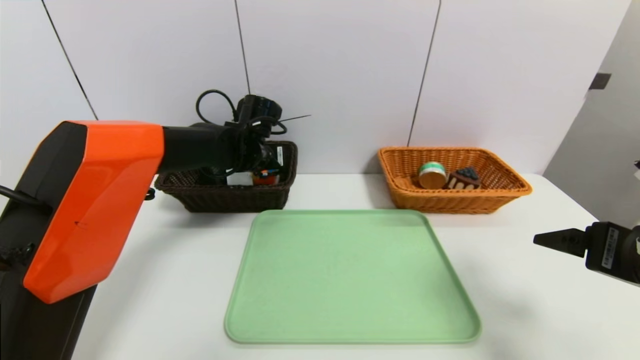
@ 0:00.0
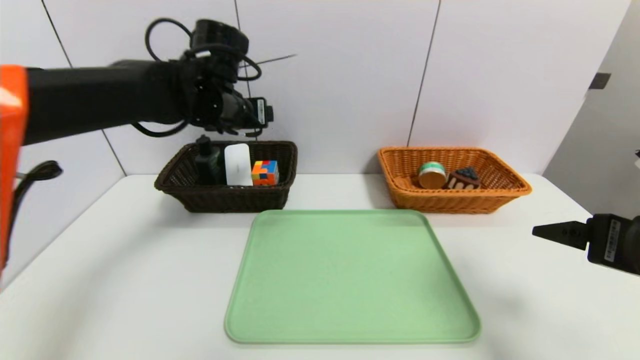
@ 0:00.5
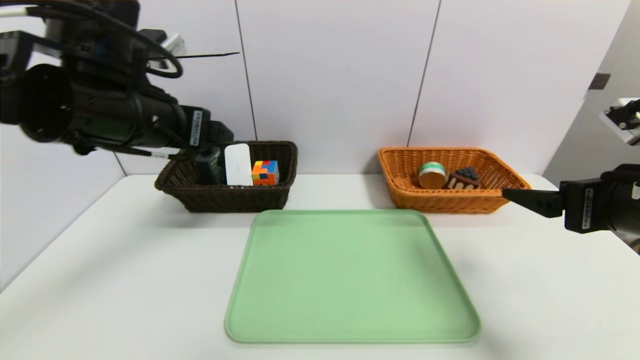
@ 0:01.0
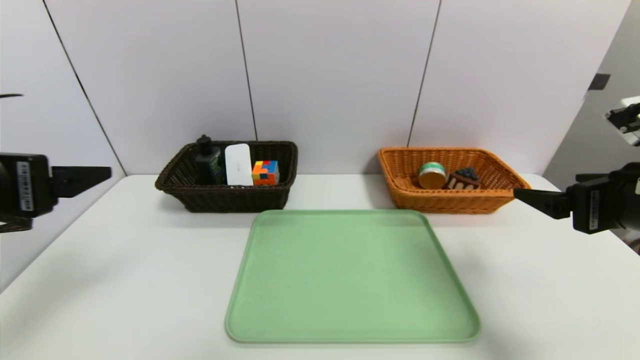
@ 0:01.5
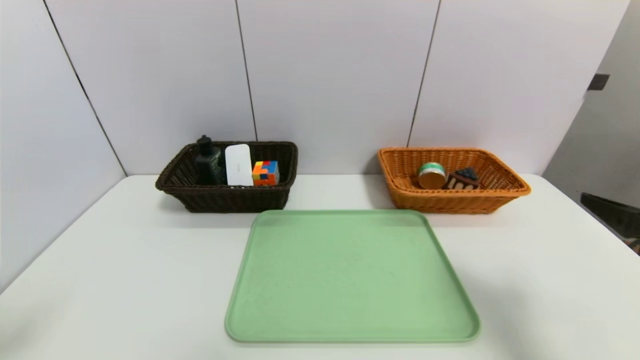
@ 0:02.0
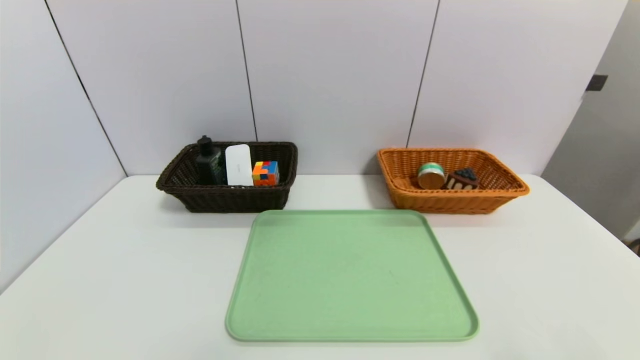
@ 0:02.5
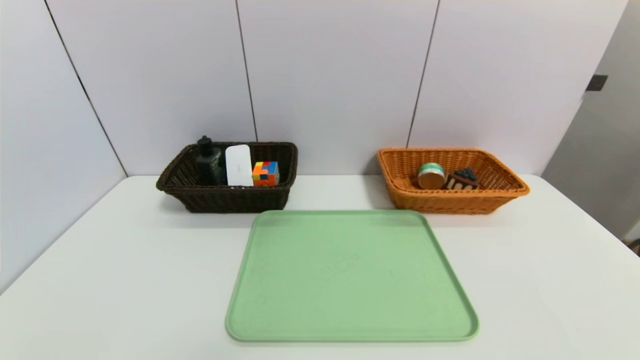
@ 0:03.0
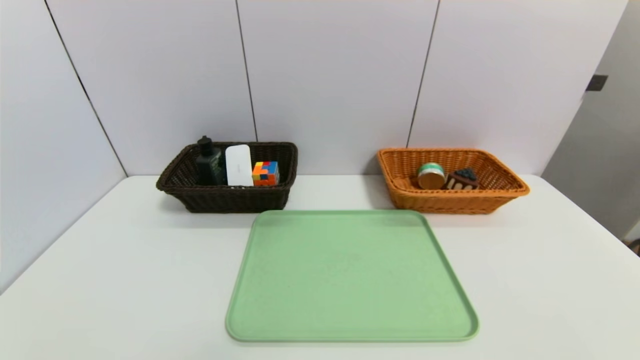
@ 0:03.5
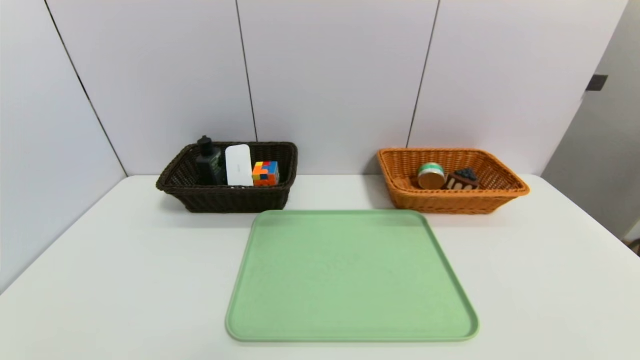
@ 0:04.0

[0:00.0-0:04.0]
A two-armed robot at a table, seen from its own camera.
Task of the whole recording: place the food in the right basket with the right gripper, and place the non food items in the left basket with the left gripper.
0:00.0 to 0:02.0: The left gripper heads backward and to the left, covering roughly 50 cm.
0:02.0 to 0:04.0: The right gripper travels downward and backward by some 20 cm.

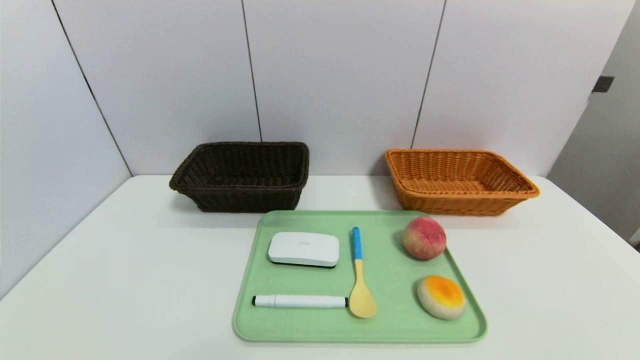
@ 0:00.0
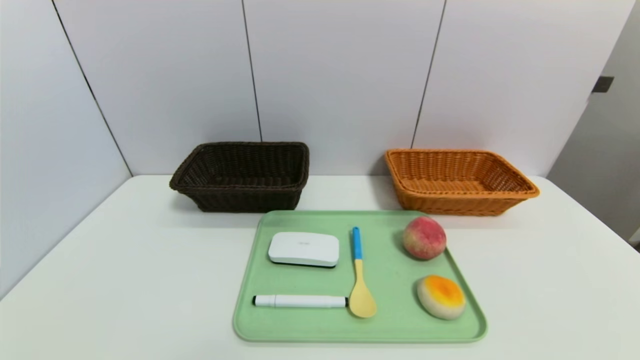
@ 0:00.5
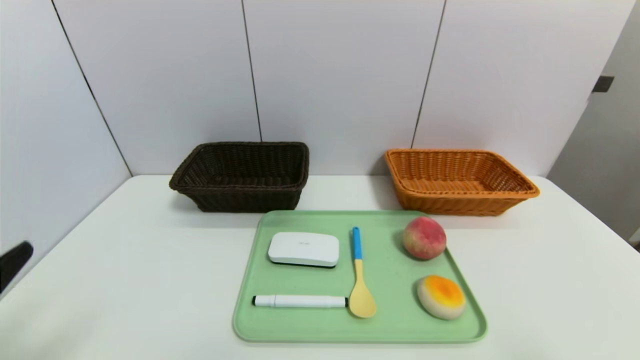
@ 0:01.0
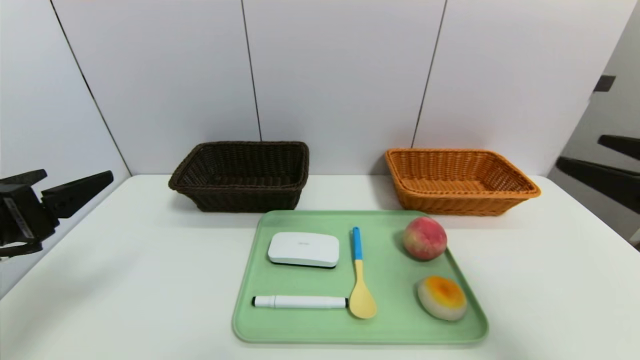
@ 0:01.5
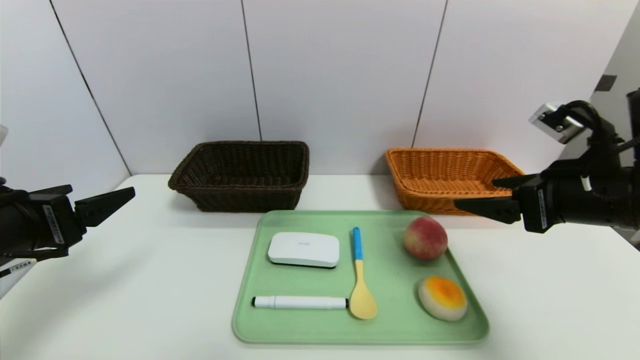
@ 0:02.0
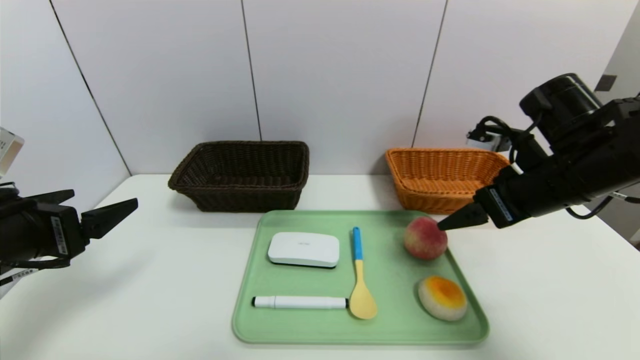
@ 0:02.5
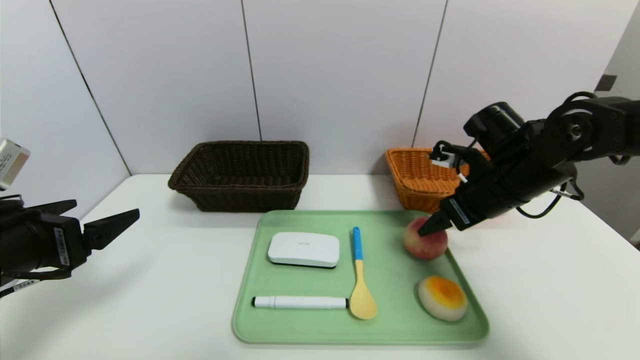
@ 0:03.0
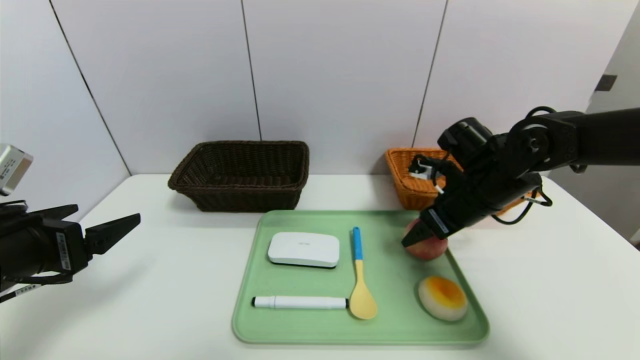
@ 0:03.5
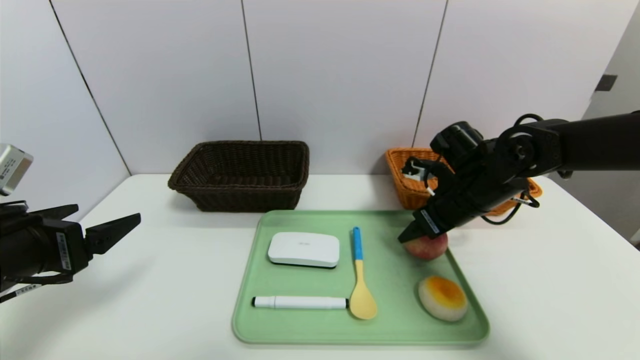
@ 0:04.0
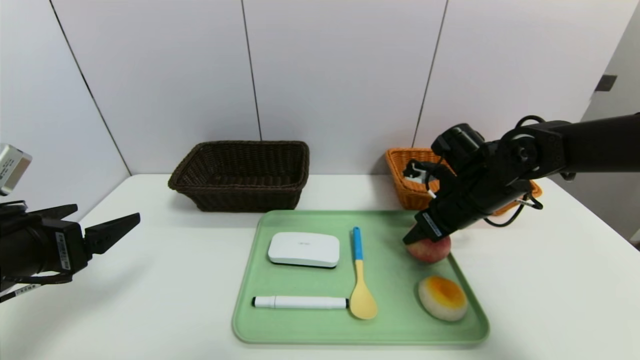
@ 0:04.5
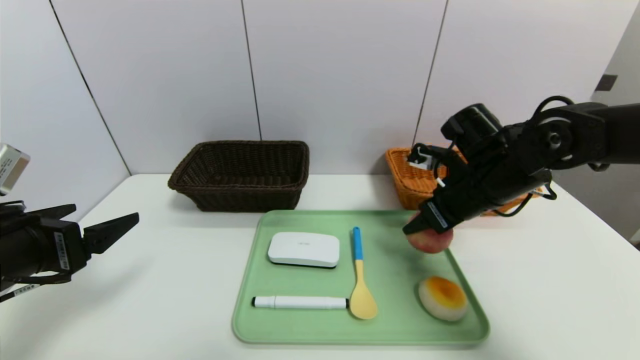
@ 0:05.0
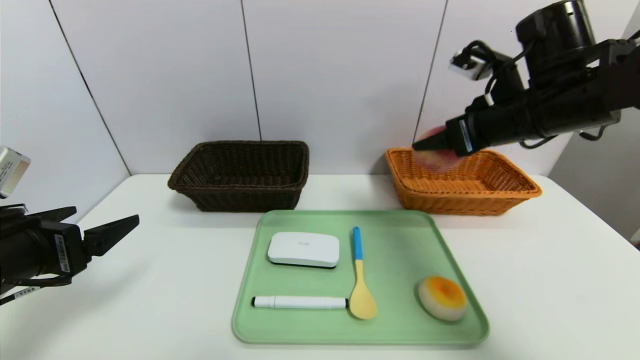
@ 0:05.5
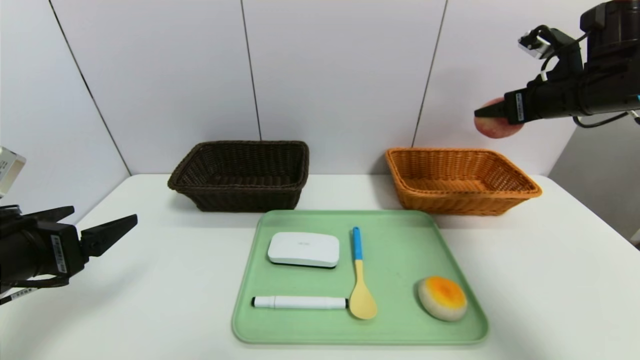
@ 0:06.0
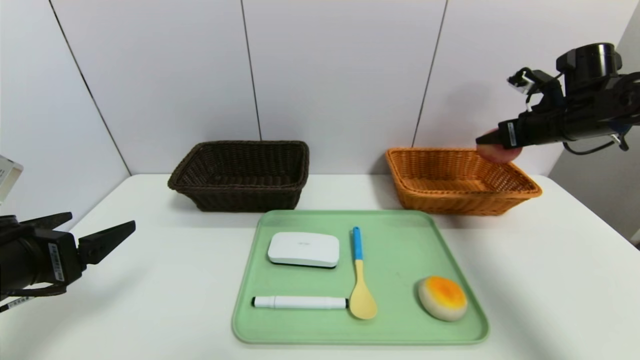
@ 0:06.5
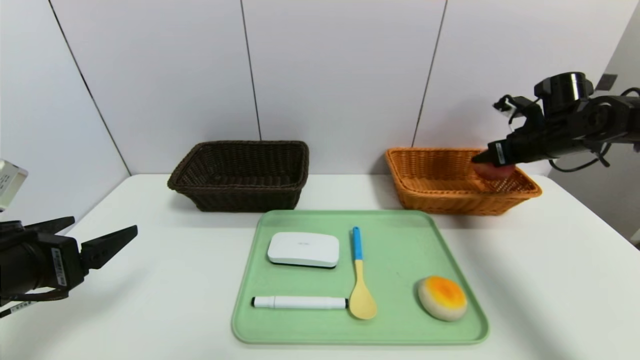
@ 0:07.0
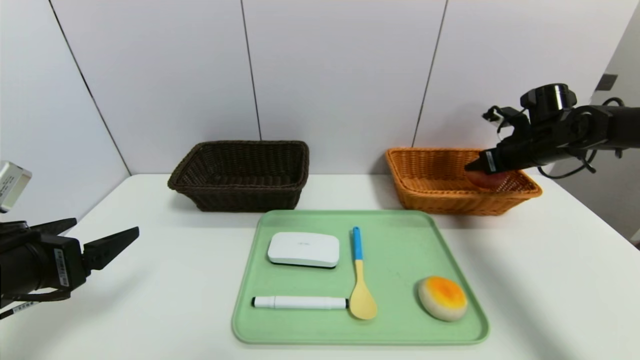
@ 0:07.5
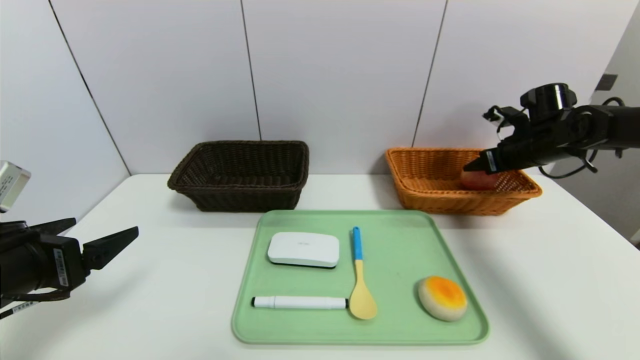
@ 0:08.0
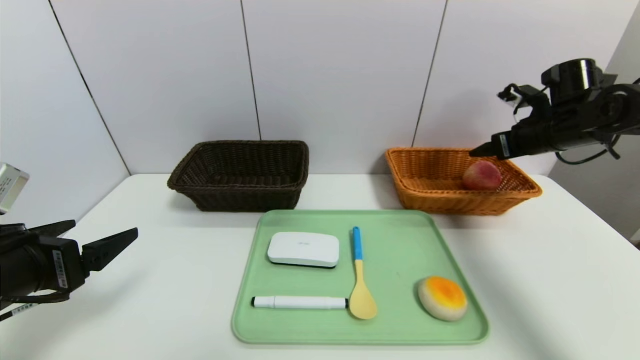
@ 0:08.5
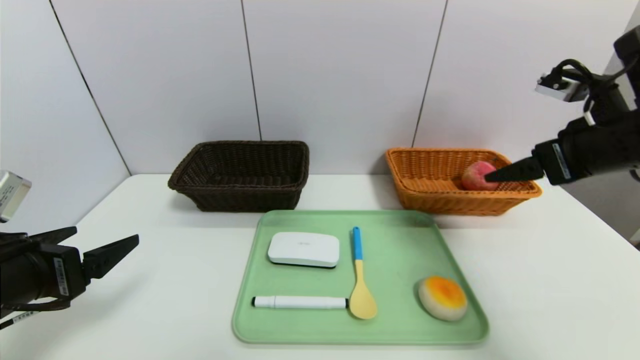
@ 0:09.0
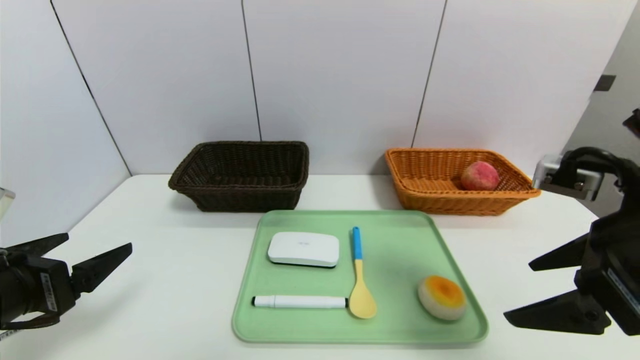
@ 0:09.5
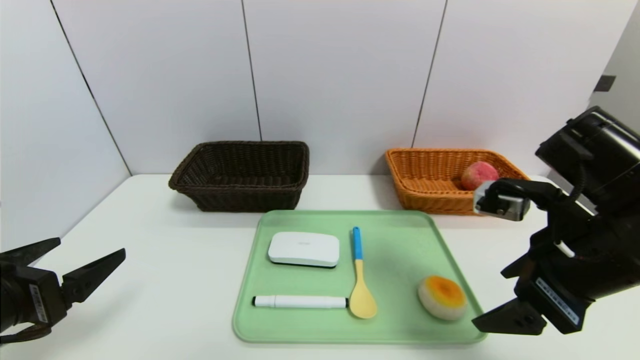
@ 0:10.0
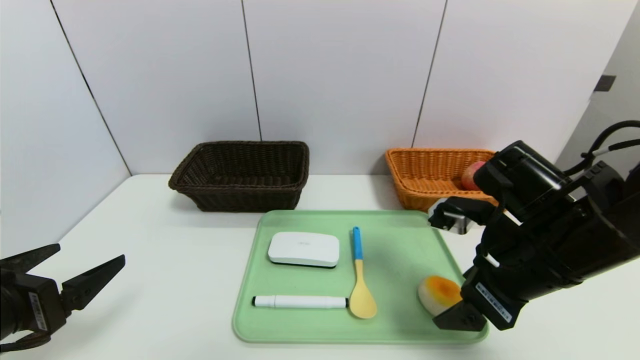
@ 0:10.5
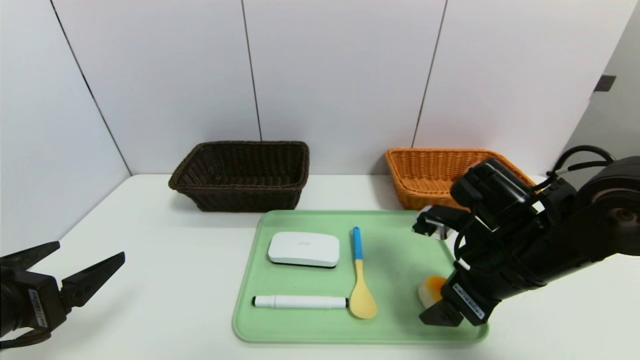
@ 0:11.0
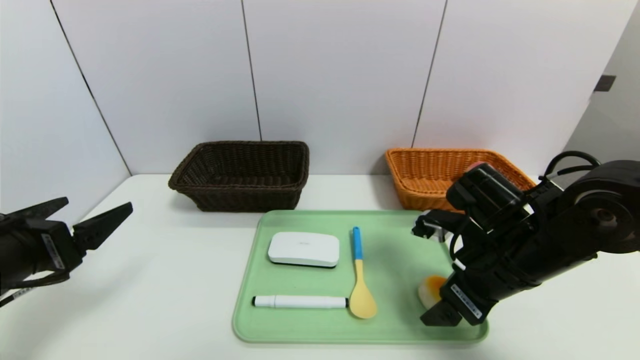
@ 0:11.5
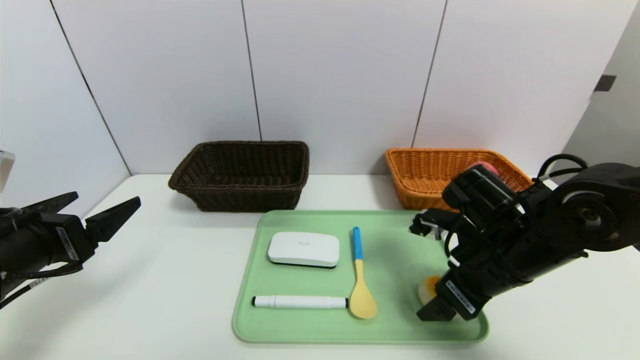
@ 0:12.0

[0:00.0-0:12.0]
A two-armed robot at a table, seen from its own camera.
Task of the whole recording: place the food in the right basket with the right gripper, and place the non food items in the left basket with the left gripper.
Step, 0:00.0 to 0:08.5: Grasp the peach and put it in the right basket.
0:00.0 to 0:02.0: Both grippers move forward and upward, about 25 cm.
0:02.0 to 0:04.0: The right gripper is displaced forward, downward and to the left by some 15 cm.
0:04.0 to 0:06.0: The right gripper is displaced upward and to the right by approximately 20 cm.
0:06.0 to 0:08.0: The right gripper is displaced downward and forward by about 15 cm.
0:08.0 to 0:10.0: The right gripper moves backward and to the left, roughly 30 cm.
0:10.0 to 0:12.0: The right gripper heads downward and forward, covering about 10 cm.

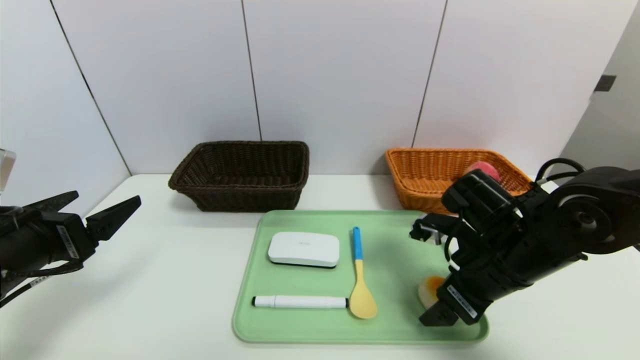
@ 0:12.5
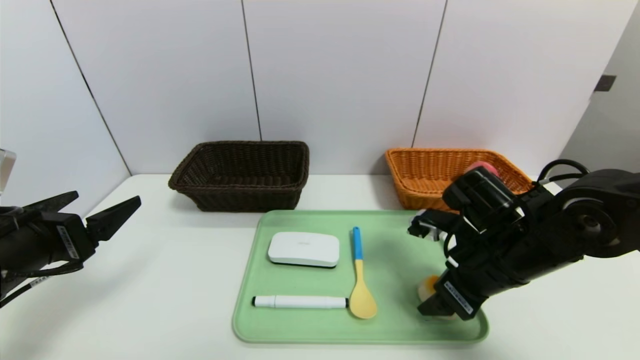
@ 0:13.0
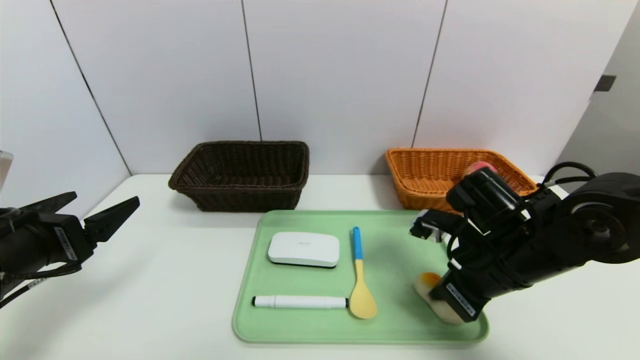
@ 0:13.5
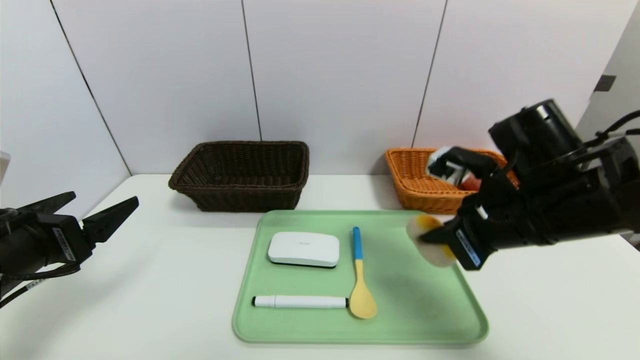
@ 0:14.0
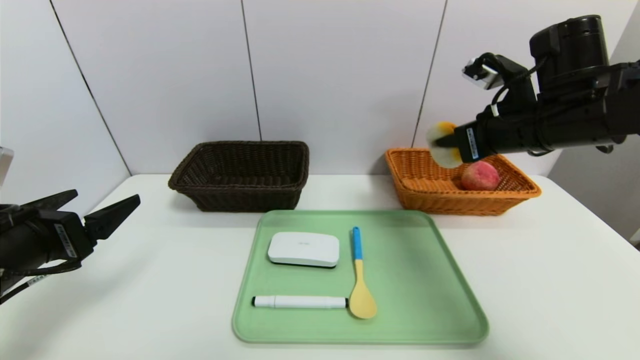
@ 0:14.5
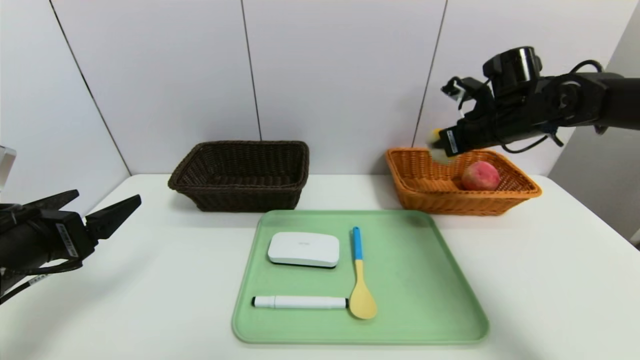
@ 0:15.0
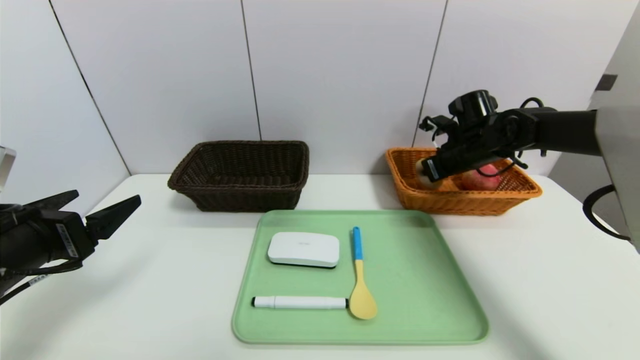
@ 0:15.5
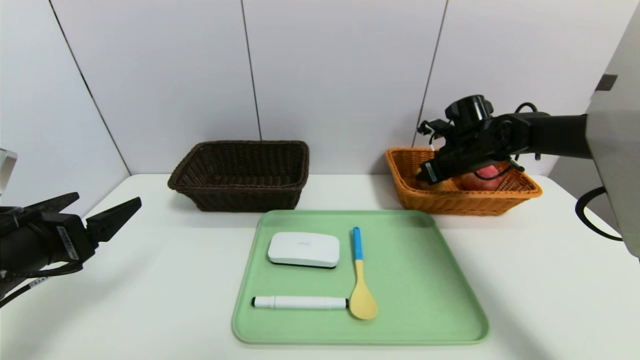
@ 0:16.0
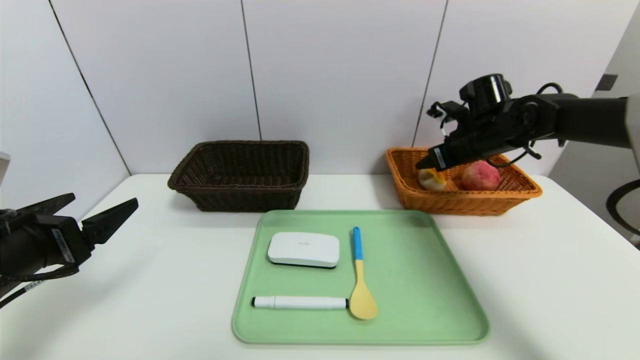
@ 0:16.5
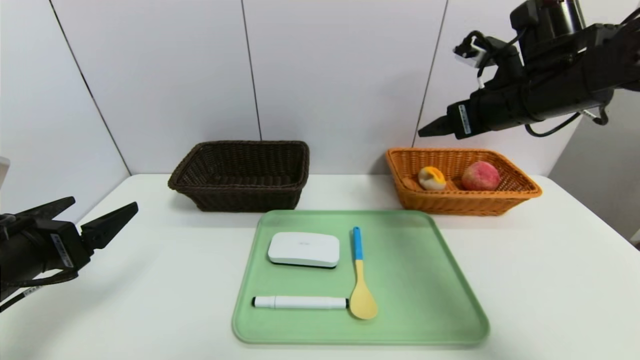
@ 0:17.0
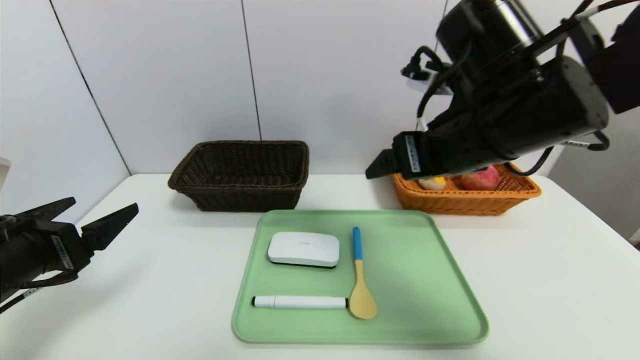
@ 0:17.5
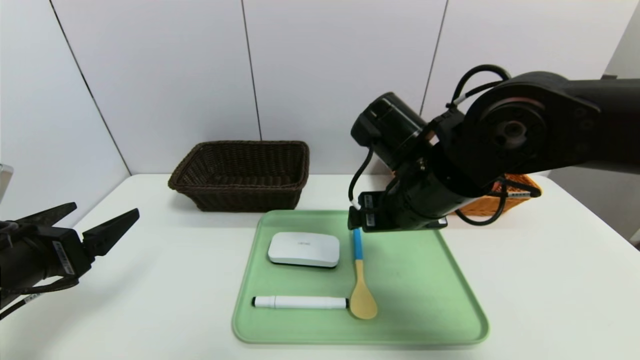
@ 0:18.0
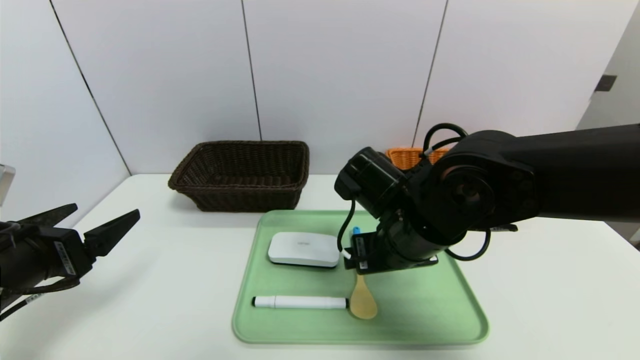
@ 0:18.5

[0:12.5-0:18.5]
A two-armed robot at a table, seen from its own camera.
Task of the whole recording: place the food in the right basket with the right gripper, and place the non food items in the left basket with the left gripper.
Step, 0:12.5 to 0:16.5: Grasp the egg yolk pastry and put it in the right basket.
0:12.5 to 0:14.5: The right gripper goes roughly 15 cm upward and forward, and closes its fingers.
0:14.5 to 0:16.5: The right gripper is displaced forward and downward by roughly 15 cm, and opens up.
0:16.5 to 0:18.5: The right gripper travels backward and to the left by some 25 cm.
